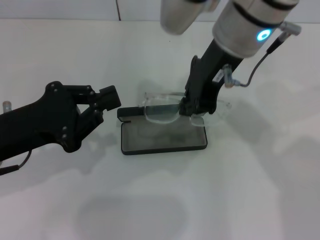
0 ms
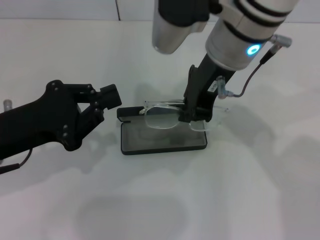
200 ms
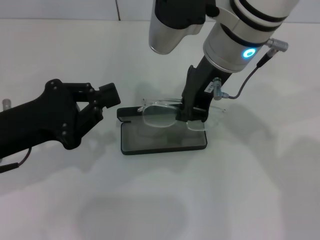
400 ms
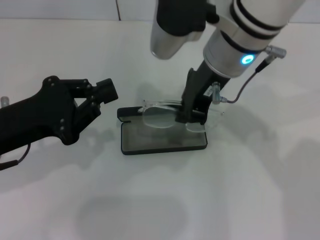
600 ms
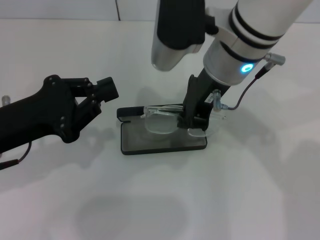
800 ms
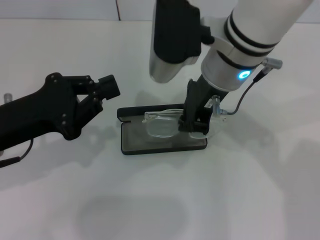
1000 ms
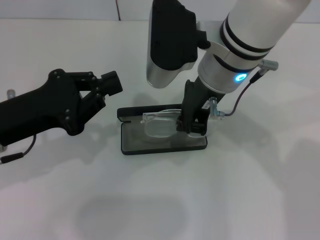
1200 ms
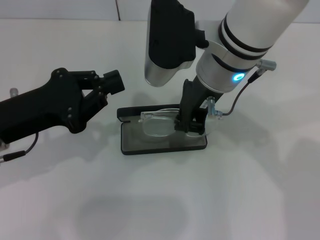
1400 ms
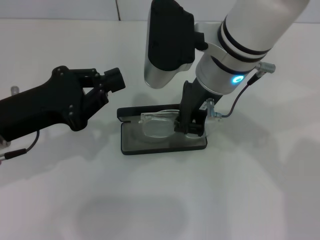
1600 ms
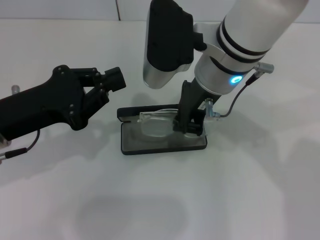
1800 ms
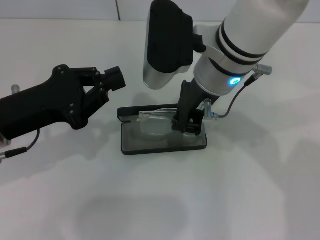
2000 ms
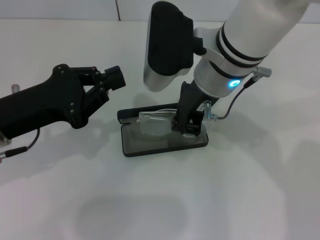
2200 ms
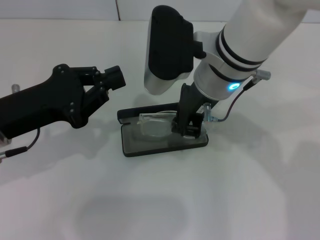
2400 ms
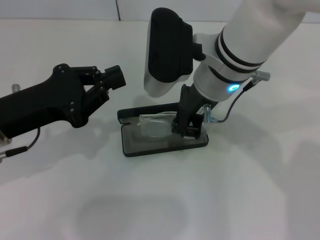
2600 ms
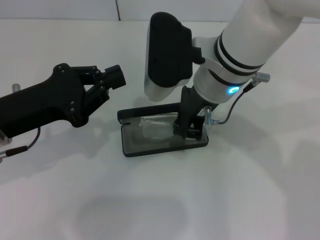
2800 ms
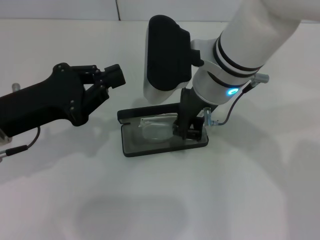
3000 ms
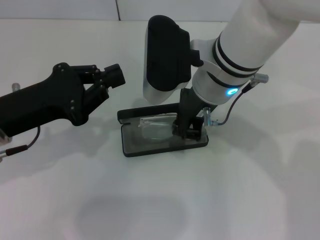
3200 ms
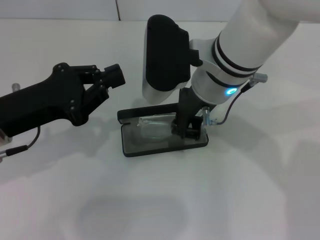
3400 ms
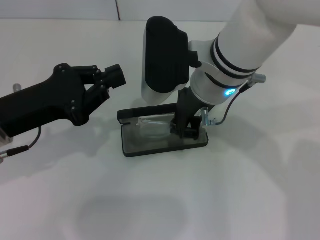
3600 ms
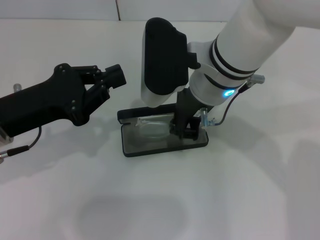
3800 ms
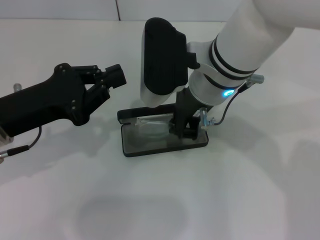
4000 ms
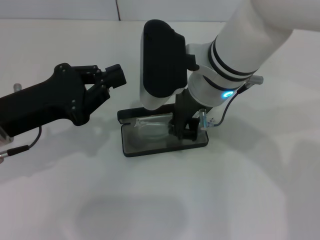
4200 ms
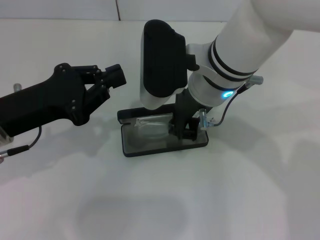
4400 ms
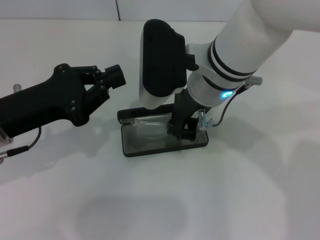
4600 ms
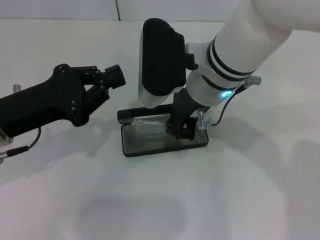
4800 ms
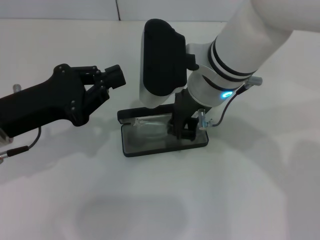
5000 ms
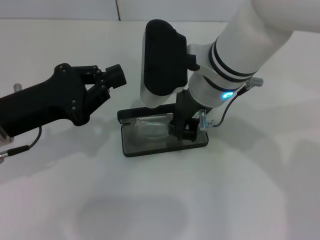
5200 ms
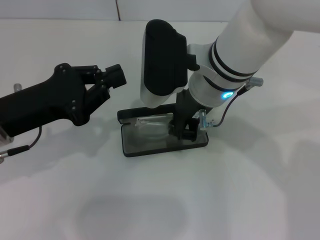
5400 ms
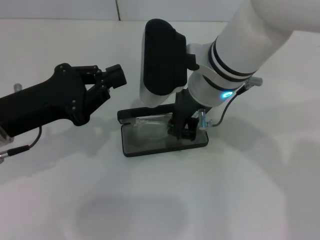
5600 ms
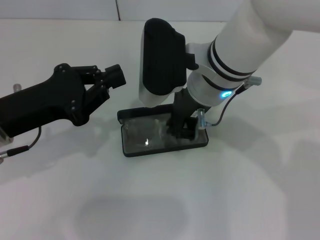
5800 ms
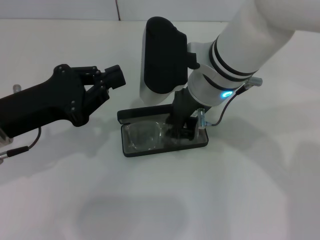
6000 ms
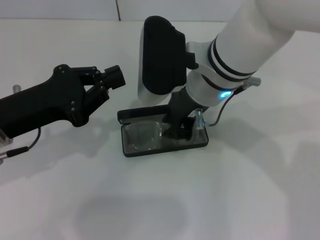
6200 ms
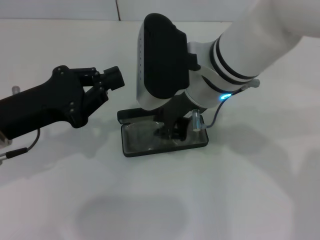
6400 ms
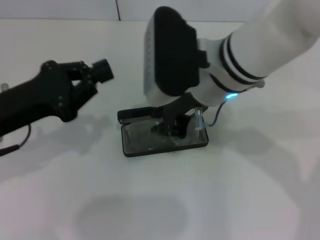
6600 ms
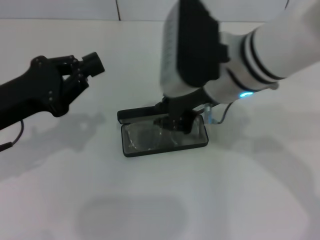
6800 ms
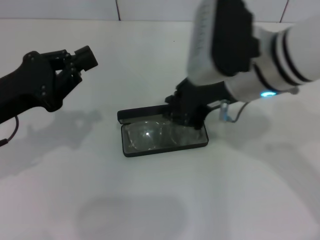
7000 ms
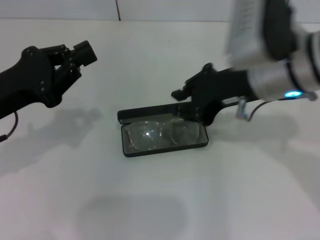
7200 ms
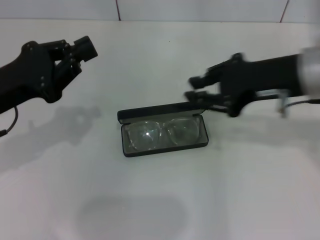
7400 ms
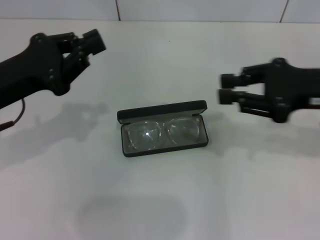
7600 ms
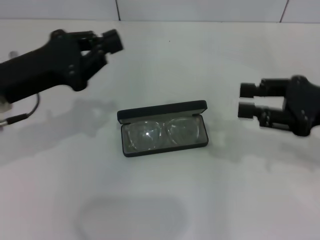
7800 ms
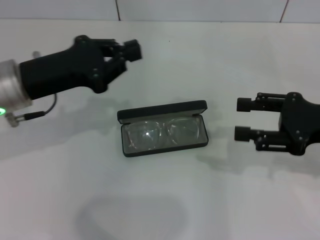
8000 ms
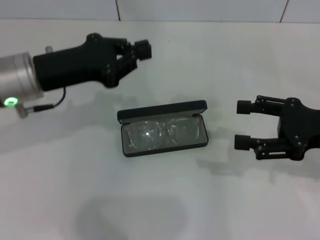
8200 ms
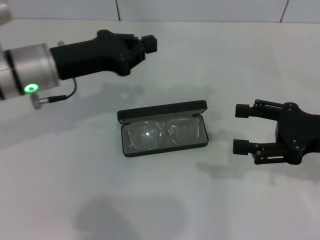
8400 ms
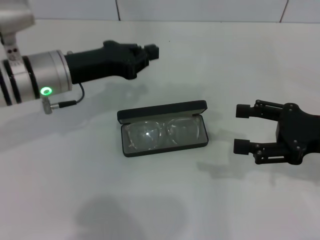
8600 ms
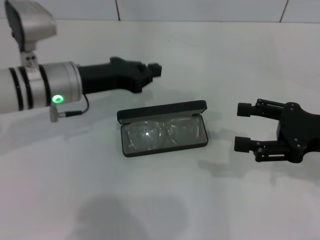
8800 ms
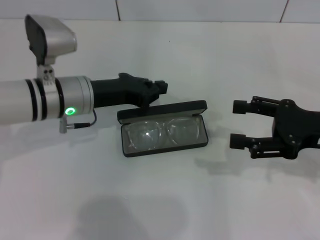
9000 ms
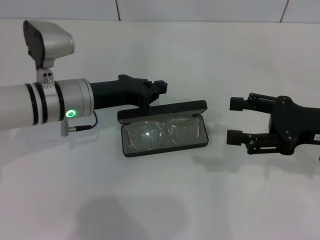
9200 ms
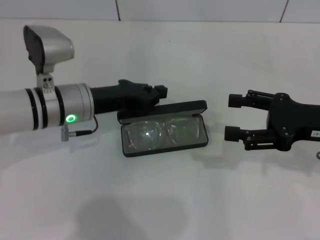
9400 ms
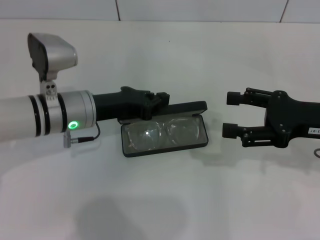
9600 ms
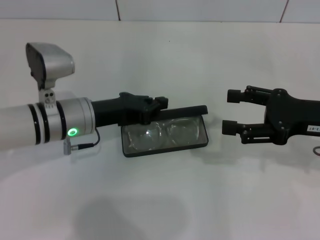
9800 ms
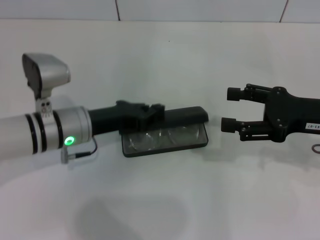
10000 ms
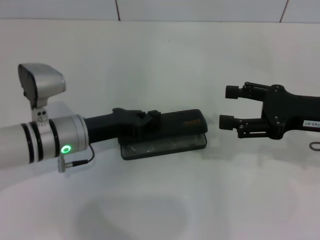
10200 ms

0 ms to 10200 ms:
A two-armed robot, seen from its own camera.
Step, 0 ms to 5800 ms: Put the glasses into the case with your right hand.
Step, 6000 ms to 10200 ms: Close the glasses case with your left hand.
0 ms to 1400 ms: The right gripper shifts by approximately 5 cm.
1400 ms to 3000 ms: The grippers make only small movements.
3000 ms to 5800 ms: The two grippers keep their place.
5800 ms to 7200 ms: The right gripper is displaced to the right by approximately 10 cm.
7200 ms to 8800 ms: The left gripper goes roughly 15 cm forward and to the right; the right gripper is displaced to the right and downward by approximately 15 cm, and opens up.
8800 ms to 10200 ms: The left gripper moves downward, some 5 cm.

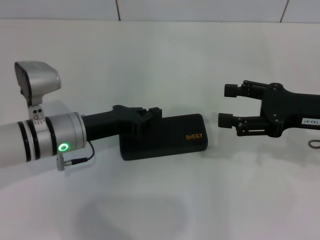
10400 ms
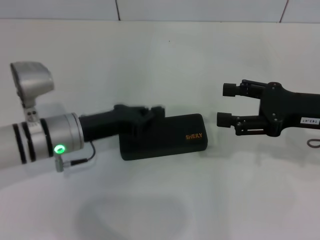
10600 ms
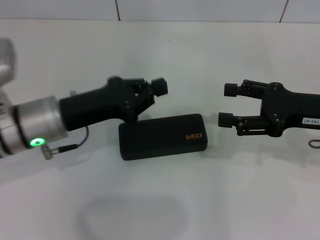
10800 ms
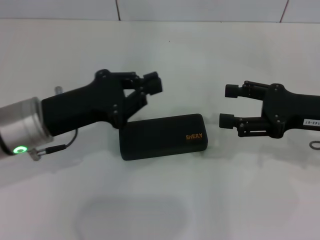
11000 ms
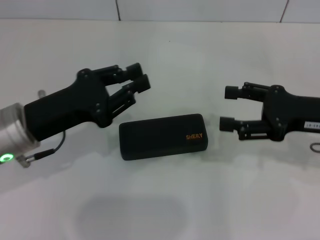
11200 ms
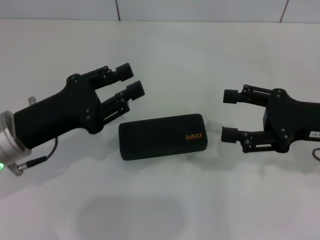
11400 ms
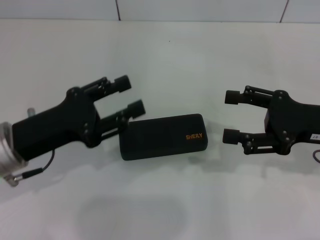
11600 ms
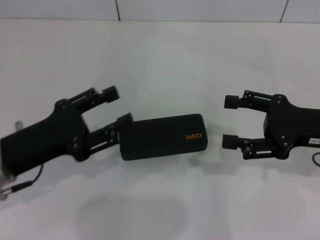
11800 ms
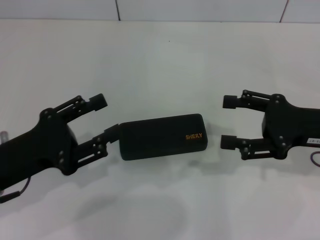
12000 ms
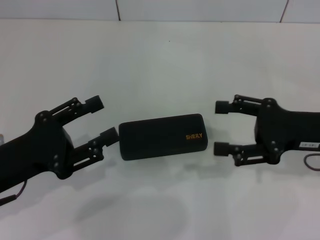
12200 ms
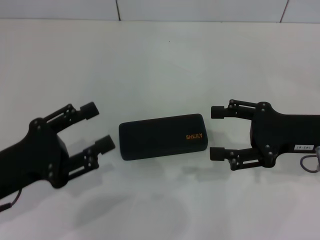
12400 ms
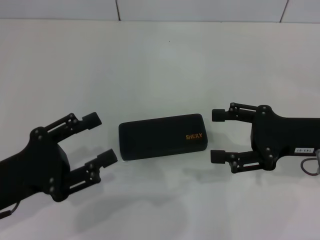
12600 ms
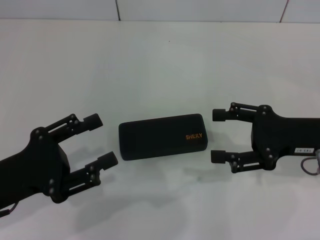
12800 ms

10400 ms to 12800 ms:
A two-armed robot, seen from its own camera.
10400 ms to 11600 ms: The left gripper moves backward and upward, about 10 cm, and opens its fingers.
11600 ms to 12800 ms: The left gripper moves backward, roughly 5 cm, and opens its fingers.

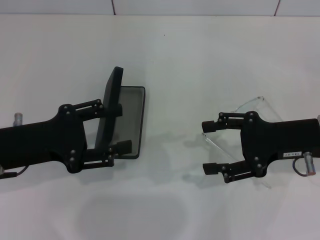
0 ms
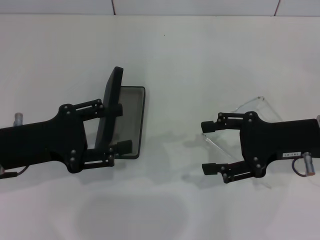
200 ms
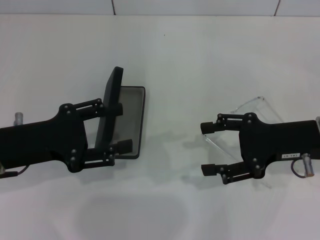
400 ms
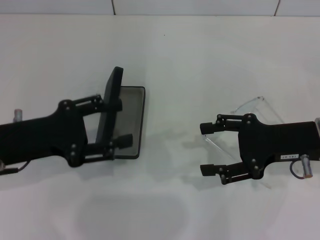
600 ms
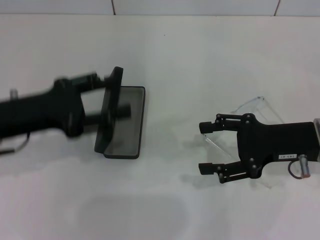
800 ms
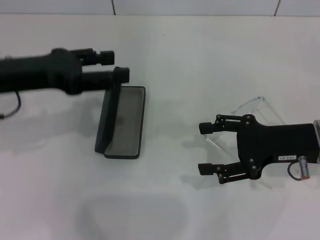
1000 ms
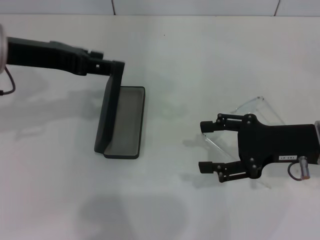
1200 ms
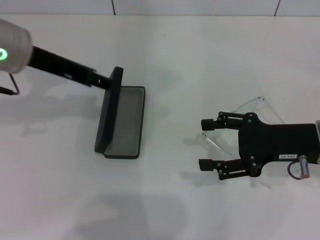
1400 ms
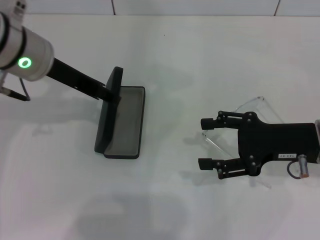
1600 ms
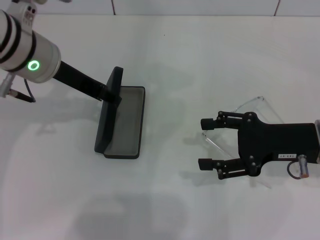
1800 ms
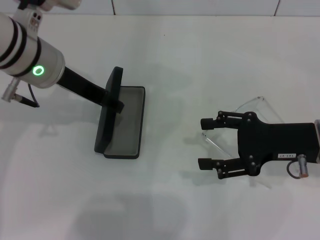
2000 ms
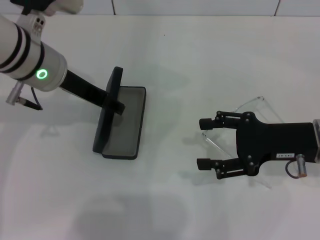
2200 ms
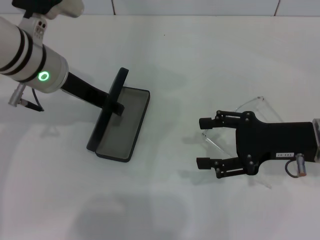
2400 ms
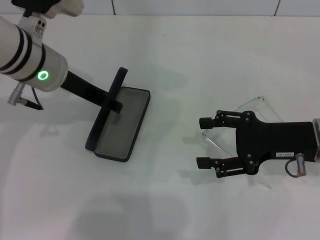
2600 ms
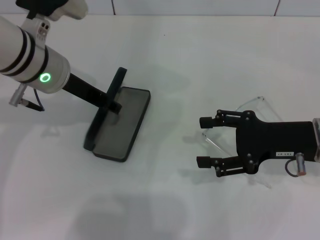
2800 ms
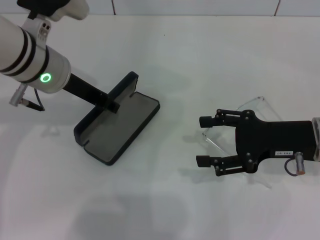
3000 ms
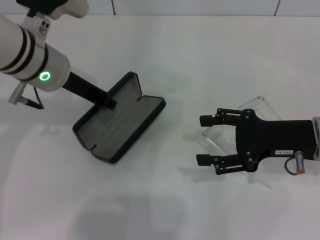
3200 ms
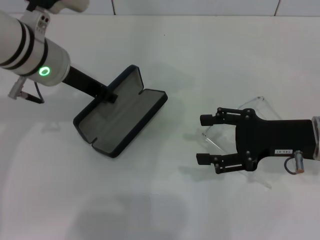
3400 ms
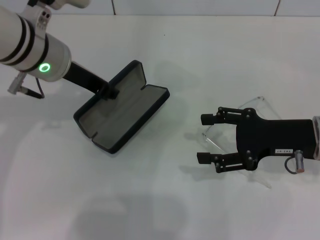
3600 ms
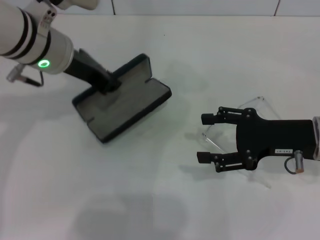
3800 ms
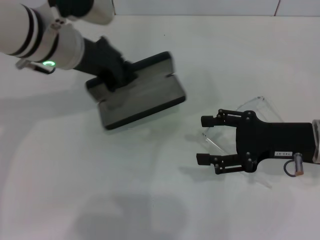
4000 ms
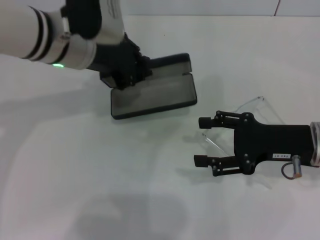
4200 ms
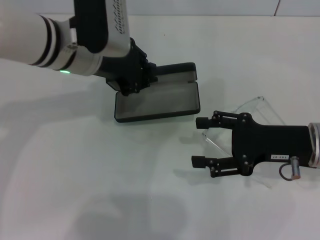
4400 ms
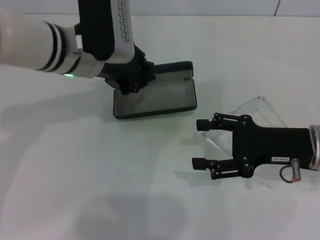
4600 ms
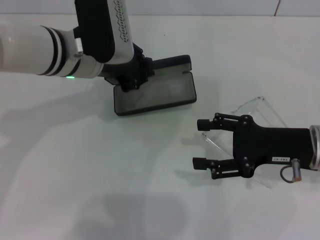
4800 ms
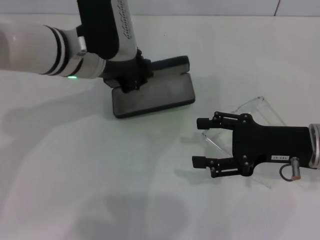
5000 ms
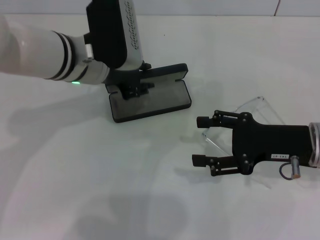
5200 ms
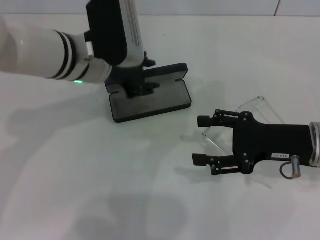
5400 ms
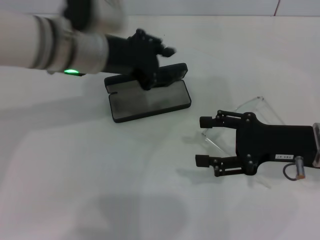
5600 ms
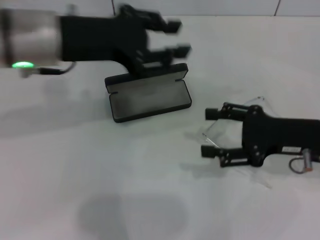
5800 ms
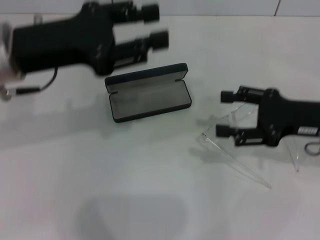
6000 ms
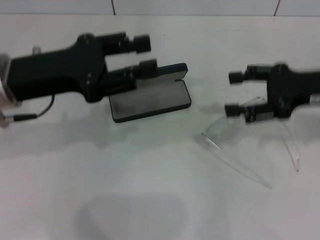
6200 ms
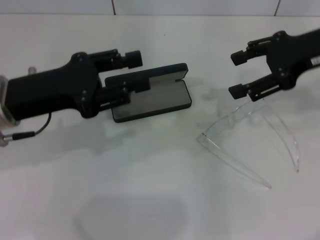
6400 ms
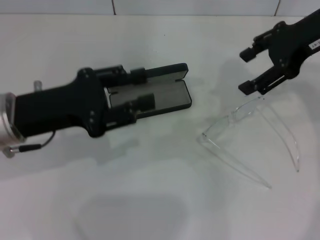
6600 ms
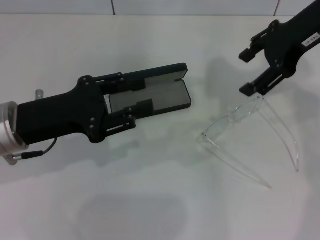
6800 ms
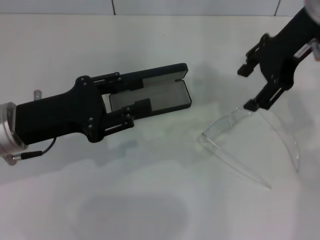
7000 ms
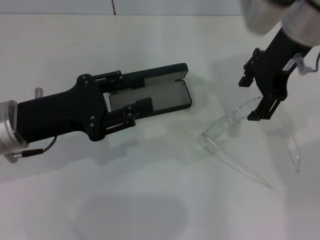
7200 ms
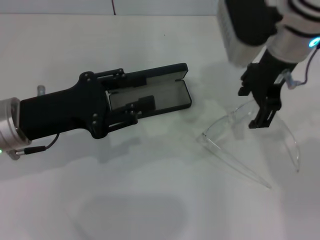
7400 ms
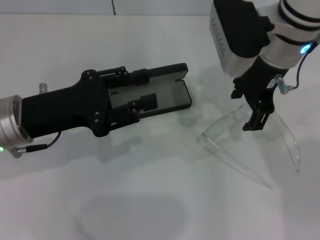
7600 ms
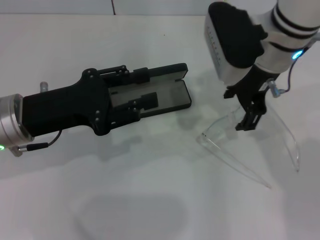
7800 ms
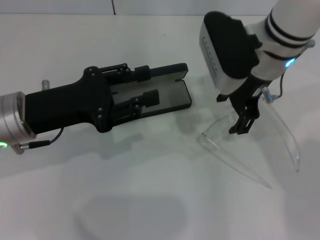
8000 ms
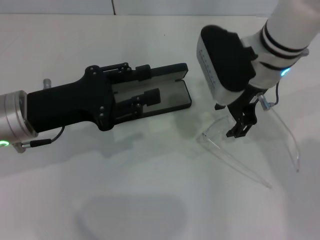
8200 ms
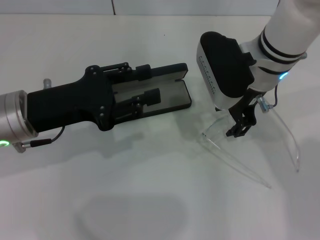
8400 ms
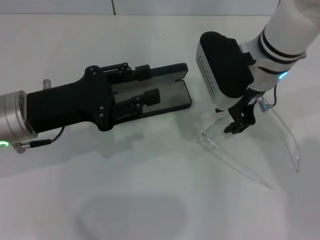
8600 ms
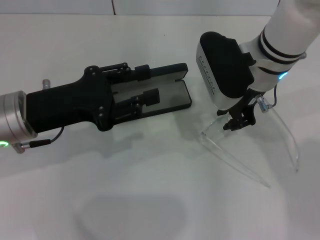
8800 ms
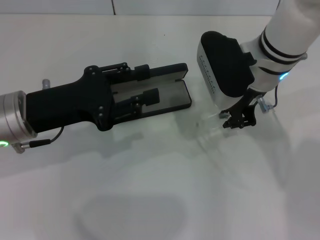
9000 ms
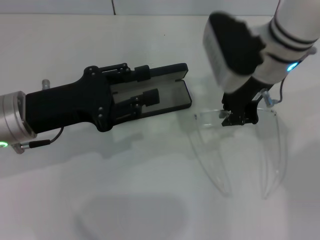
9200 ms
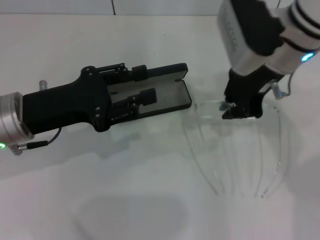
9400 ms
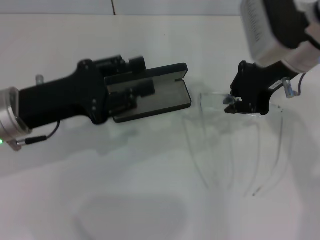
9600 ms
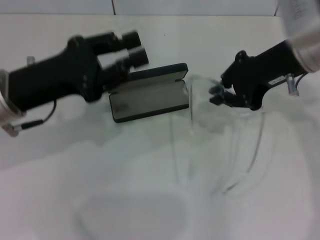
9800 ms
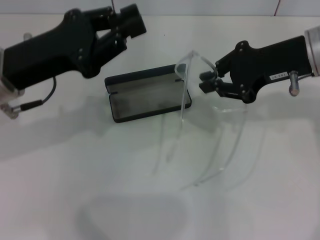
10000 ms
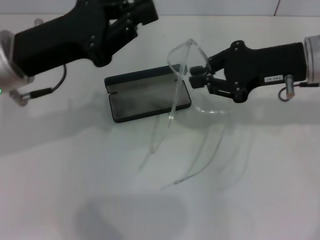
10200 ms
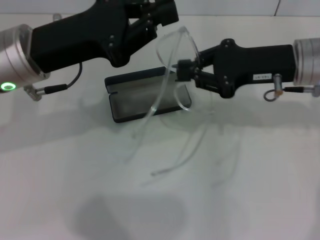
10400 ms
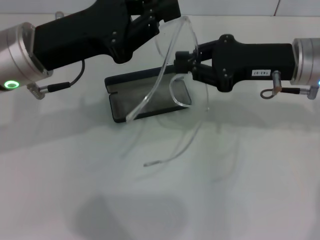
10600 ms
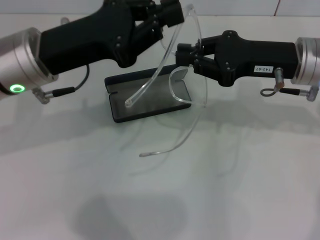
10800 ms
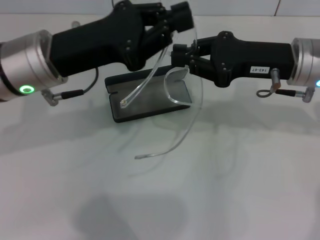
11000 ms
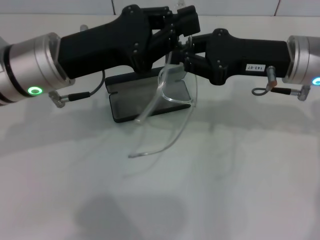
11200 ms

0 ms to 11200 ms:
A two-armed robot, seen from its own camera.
Step, 0 ms to 3000 ms: Grab the glasses case with your left hand.
Step, 3200 ms to 5000 ms: Place the glasses case in the center of the table with your left hand.
Step, 5200 ms to 9000 ms: Grab the eyeglass frame with your right hand.
0 ms to 1600 ms: The left gripper is displaced forward, upward and to the right by some 15 cm.
1600 ms to 3200 ms: The left gripper closes its fingers.
4800 ms to 6400 ms: The right gripper moves upward and forward, roughly 15 cm. The left gripper shifts roughly 15 cm to the left and backward, and opens up.
6400 ms to 8000 ms: The right gripper is displaced to the left by some 15 cm.
8000 ms to 9600 ms: The right gripper changes place by approximately 5 cm, and closes up.
9600 ms to 11200 ms: The right gripper moves some 5 cm. Meanwhile the left gripper travels to the right by about 5 cm, and closes up.
